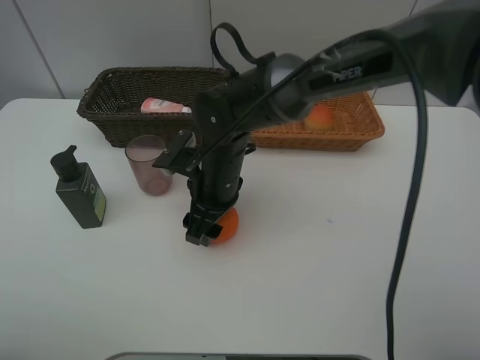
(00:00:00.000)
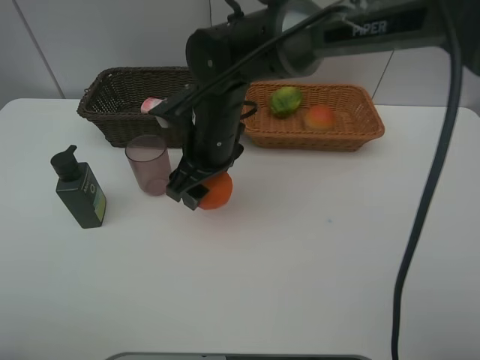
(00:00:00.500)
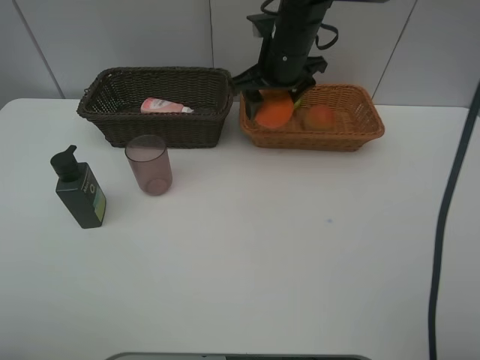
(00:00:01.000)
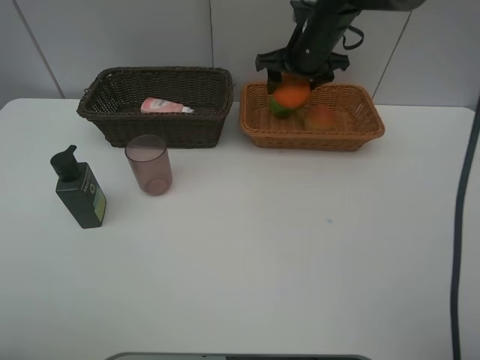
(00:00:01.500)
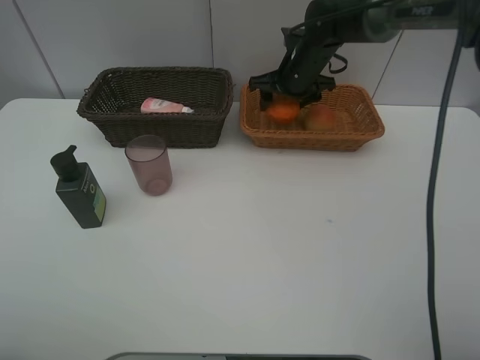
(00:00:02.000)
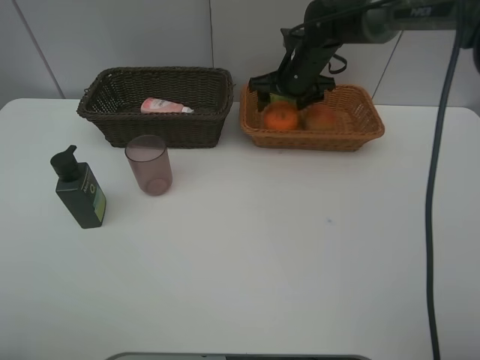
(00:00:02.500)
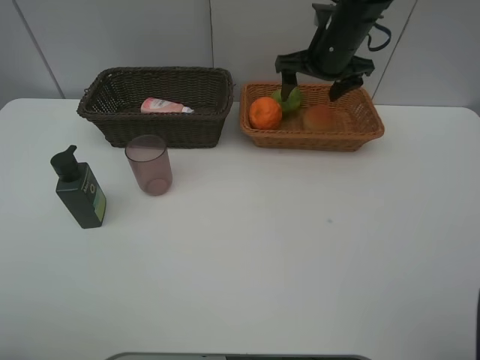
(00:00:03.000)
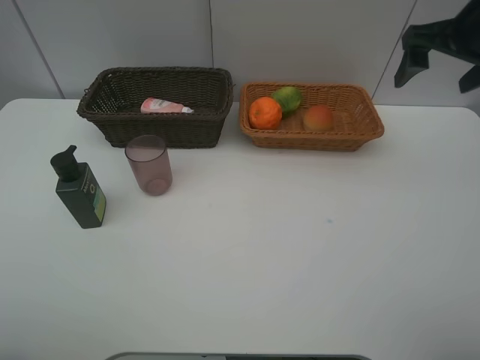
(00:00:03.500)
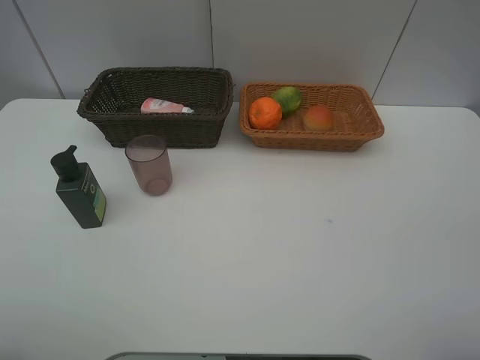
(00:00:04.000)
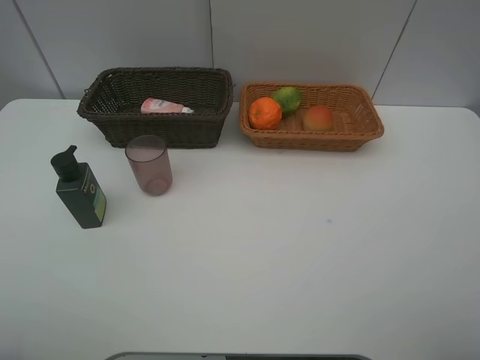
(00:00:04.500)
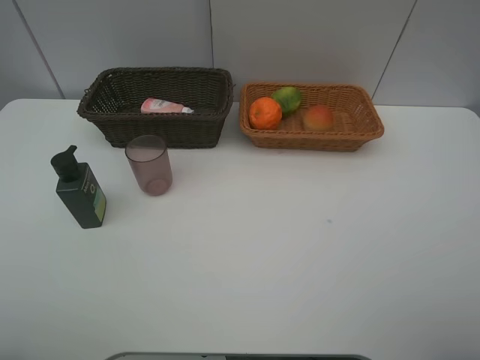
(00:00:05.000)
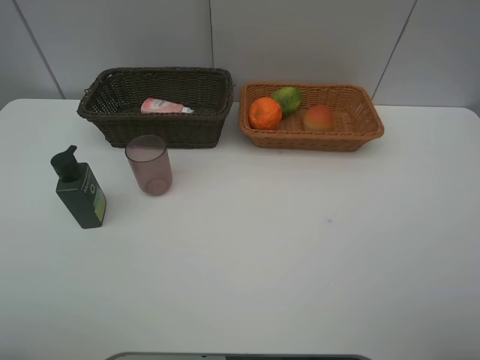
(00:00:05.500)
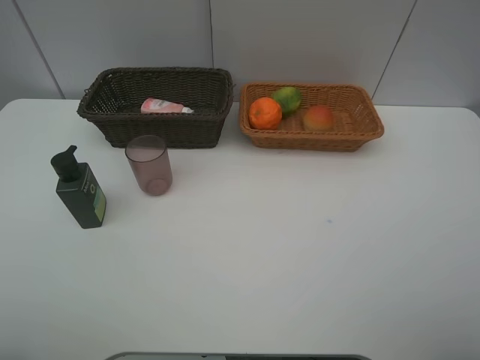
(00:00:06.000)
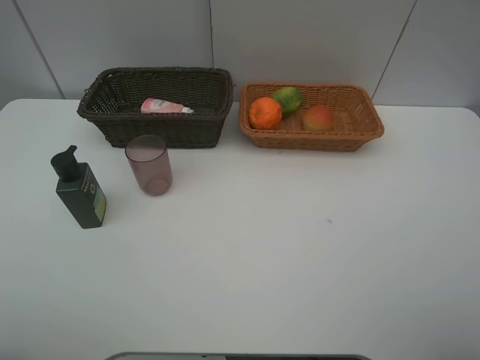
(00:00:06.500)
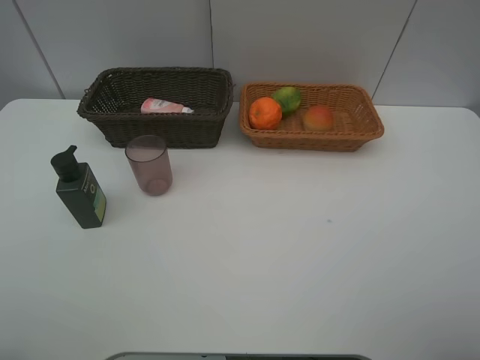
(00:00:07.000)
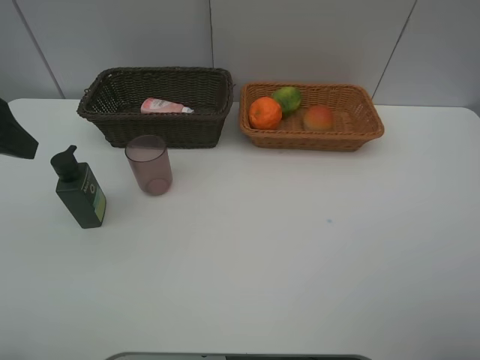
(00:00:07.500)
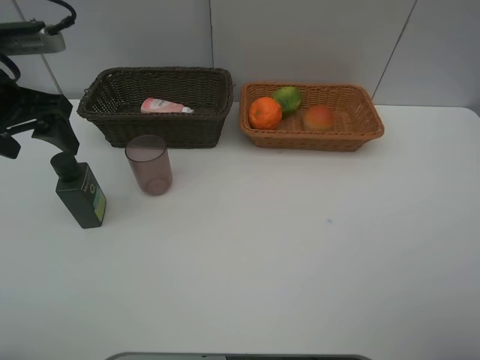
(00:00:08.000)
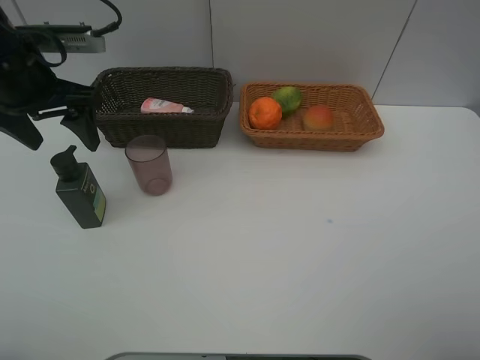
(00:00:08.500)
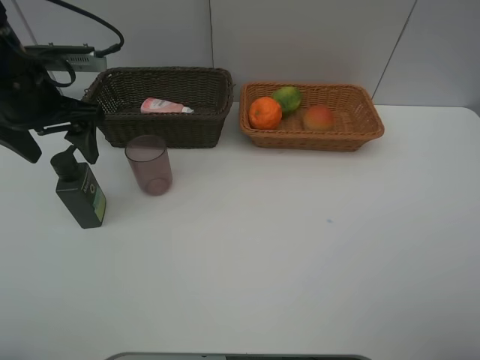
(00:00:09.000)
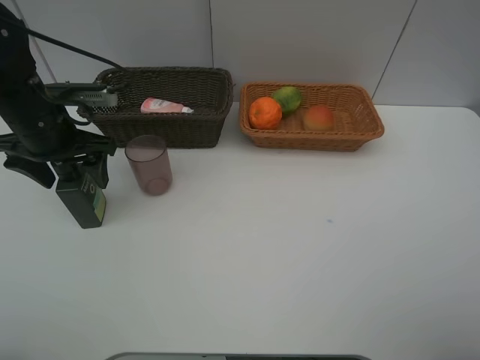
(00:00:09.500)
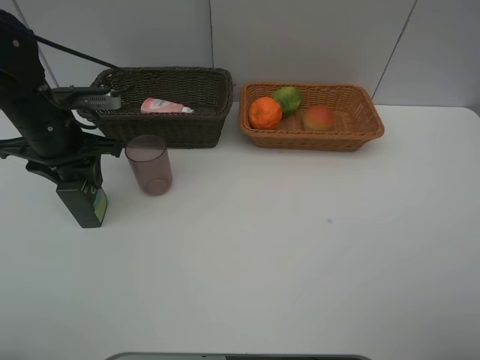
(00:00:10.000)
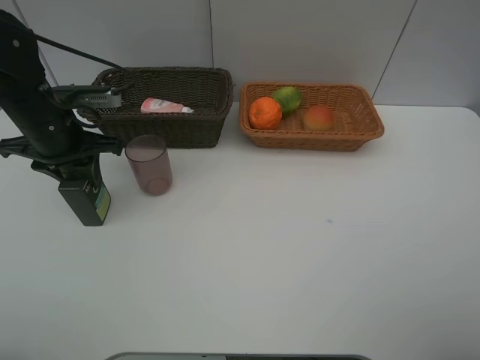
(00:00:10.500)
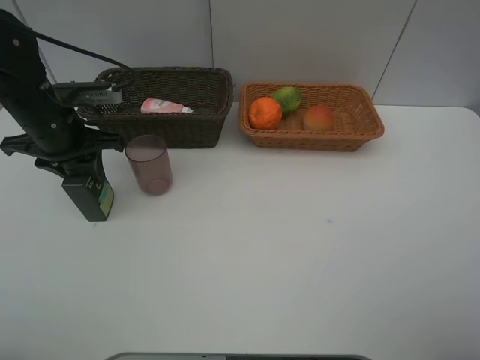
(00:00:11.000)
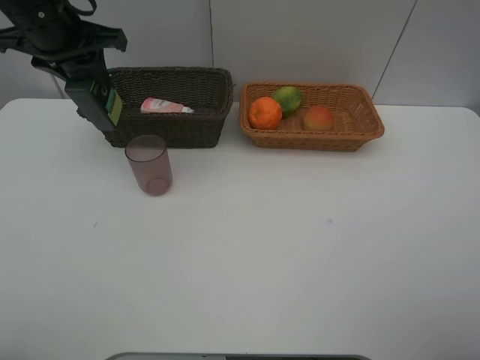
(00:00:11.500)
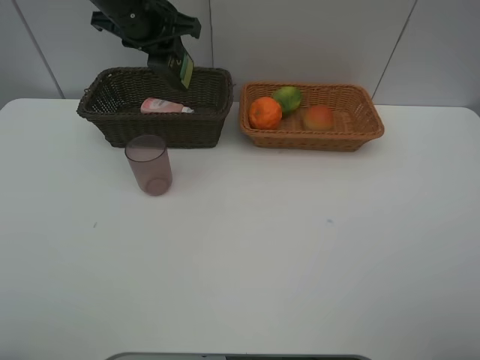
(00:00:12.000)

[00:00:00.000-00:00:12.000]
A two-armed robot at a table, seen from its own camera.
Task of the whole recording: place multiple objects separately in different baskets.
00:00:00.000 to 00:00:02.000: The right gripper is displaced forward and to the right by roughly 25 cm.
00:00:02.000 to 00:00:04.000: The right gripper travels backward, upward and to the right by roughly 40 cm, and opens its fingers.
00:00:06.000 to 00:00:08.000: The left gripper is displaced forward by approximately 30 cm.
00:00:08.000 to 00:00:10.000: The left gripper heads downward, covering approximately 10 cm, and closes up.
00:00:10.000 to 00:00:12.000: The left gripper moves to the right, upward and forward, about 20 cm.

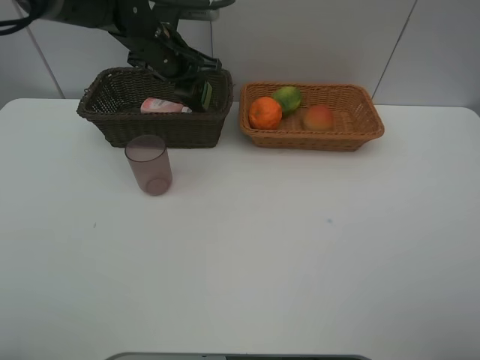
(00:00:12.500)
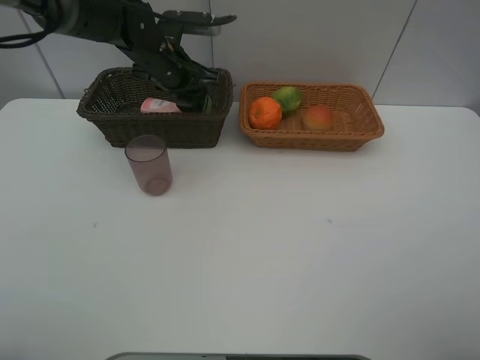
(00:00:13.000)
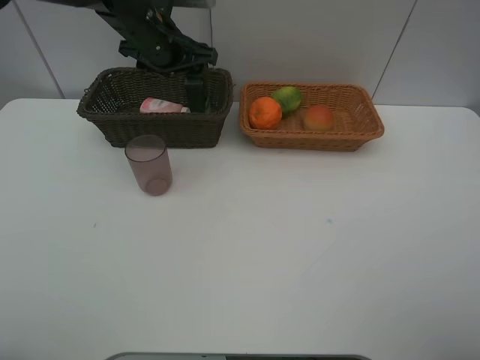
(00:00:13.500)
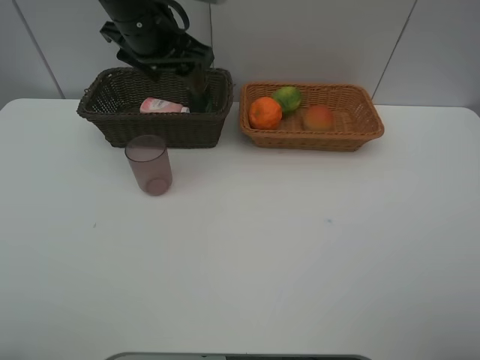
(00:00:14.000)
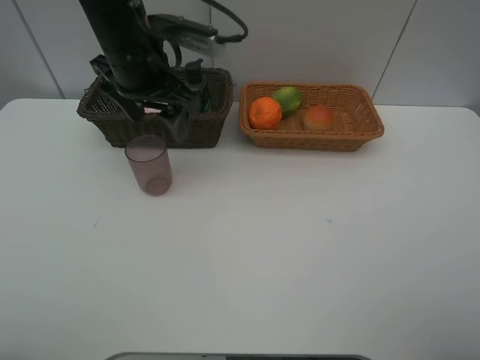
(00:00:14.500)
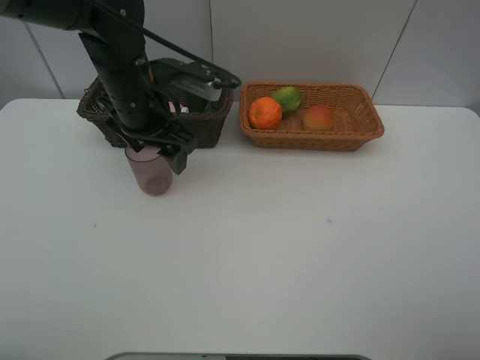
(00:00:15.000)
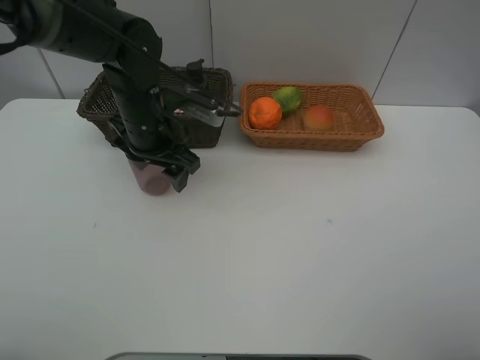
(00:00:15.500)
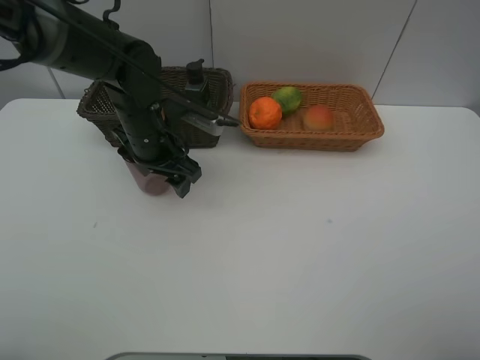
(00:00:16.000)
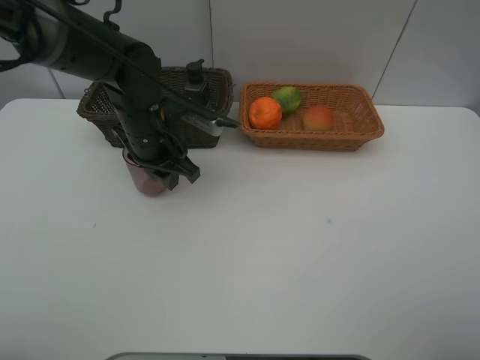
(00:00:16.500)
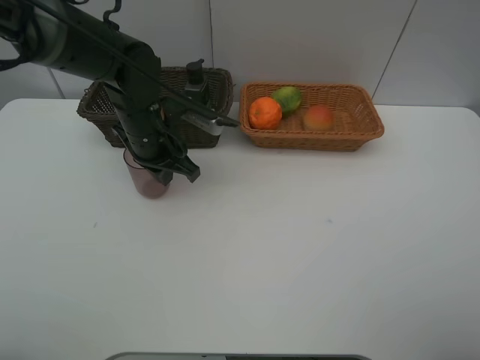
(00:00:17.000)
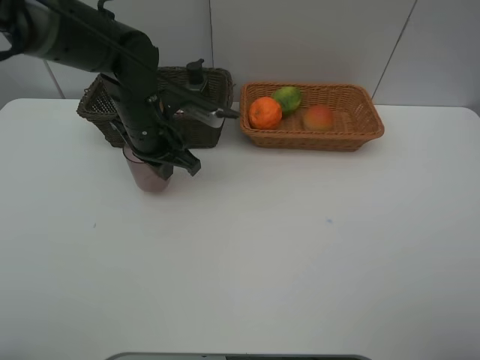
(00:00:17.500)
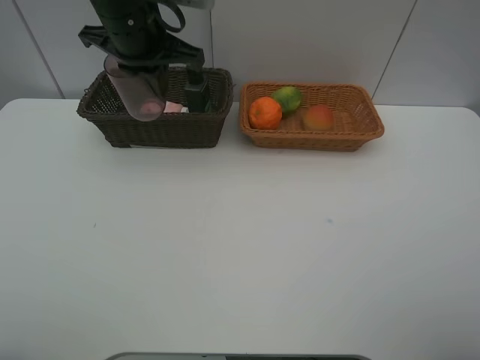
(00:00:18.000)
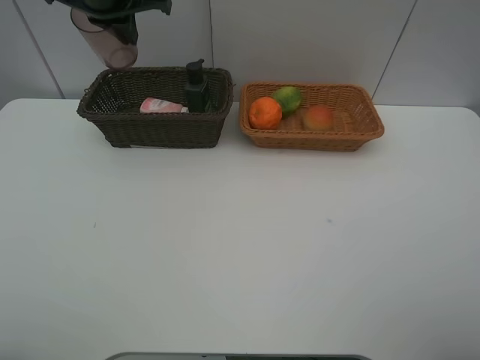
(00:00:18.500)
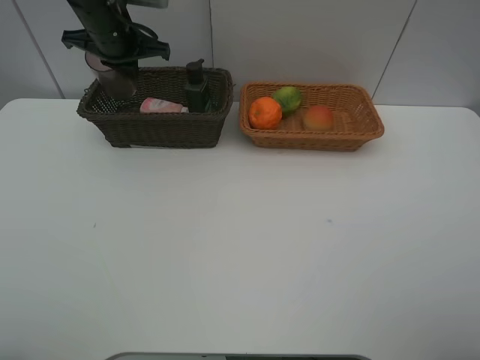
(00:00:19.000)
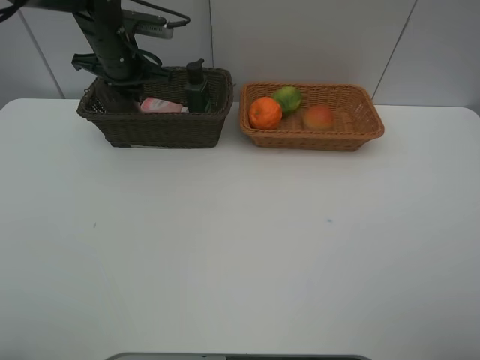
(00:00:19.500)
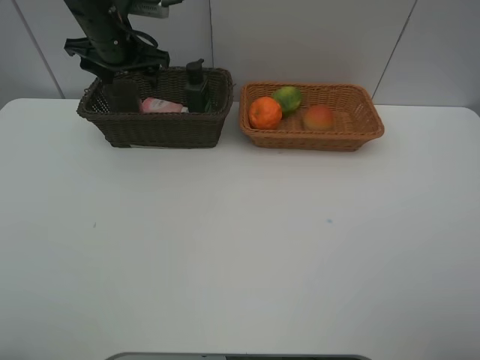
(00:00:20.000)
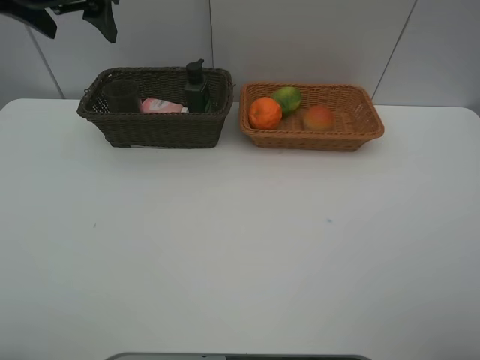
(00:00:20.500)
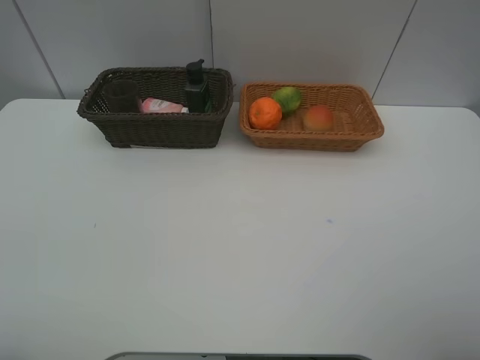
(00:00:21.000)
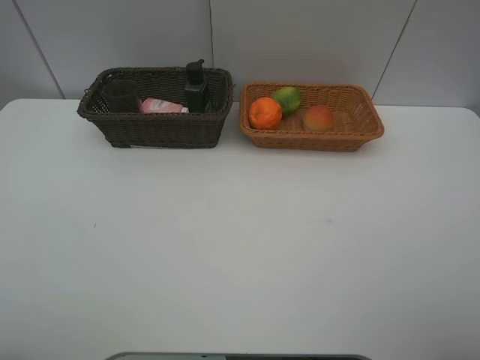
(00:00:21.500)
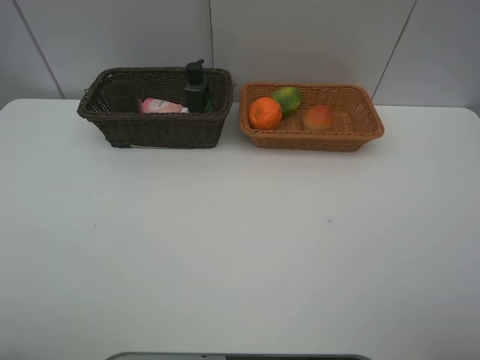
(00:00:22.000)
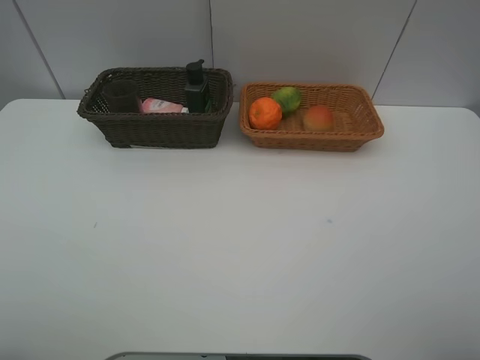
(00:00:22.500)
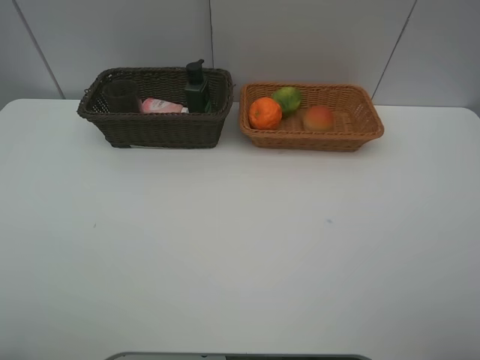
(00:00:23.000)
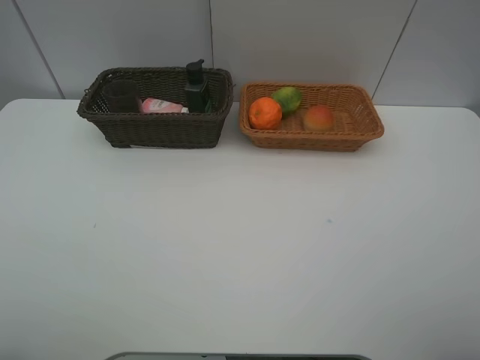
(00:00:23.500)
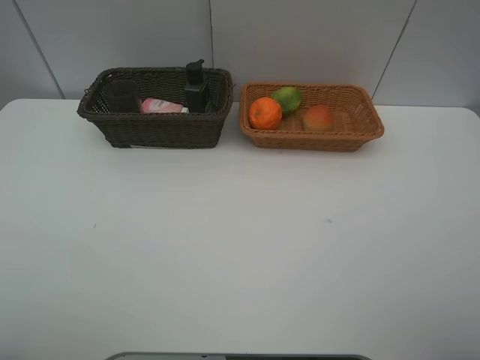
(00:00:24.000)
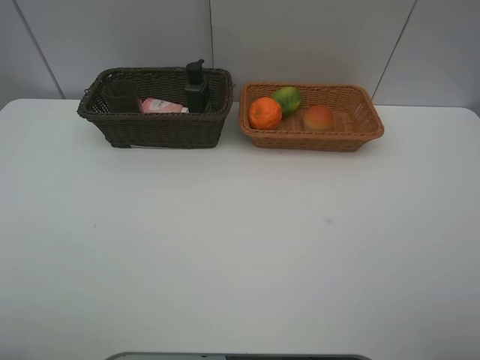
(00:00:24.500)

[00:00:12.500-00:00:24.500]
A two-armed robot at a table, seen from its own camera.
Task of the whole recording: place multiple objects separately in different baskets.
00:00:12.500 to 00:00:14.500: The left gripper moves backward, roughly 10 cm, and opens its fingers.
00:00:14.500 to 00:00:16.500: The left gripper shifts about 10 cm downward, and closes its fingers.
00:00:16.500 to 00:00:18.500: The left gripper goes about 20 cm upward and forward.
00:00:18.500 to 00:00:20.500: The left gripper travels backward by some 5 cm, goes downward and returns, approximately 10 cm each way, and opens.
00:00:20.500 to 00:00:22.500: The left gripper is displaced backward by approximately 35 cm.
